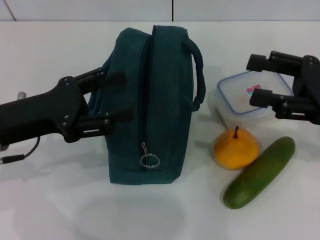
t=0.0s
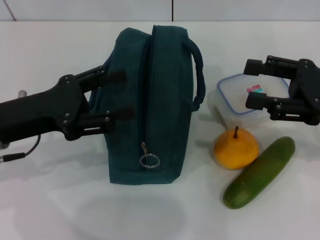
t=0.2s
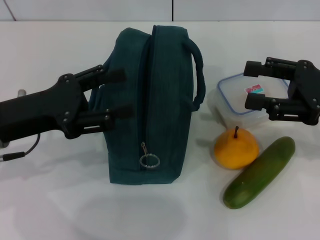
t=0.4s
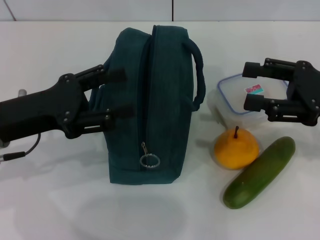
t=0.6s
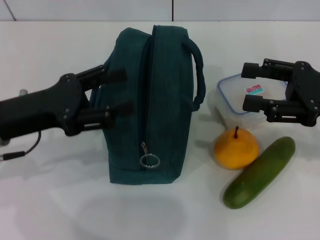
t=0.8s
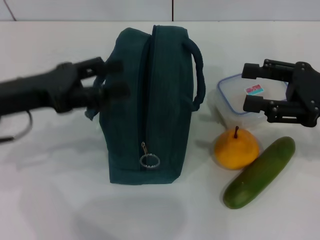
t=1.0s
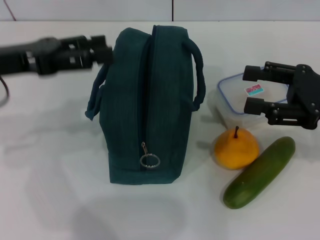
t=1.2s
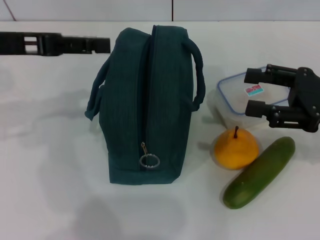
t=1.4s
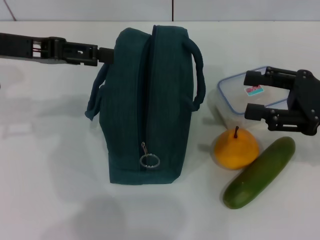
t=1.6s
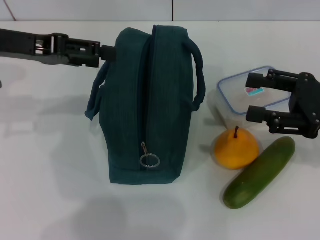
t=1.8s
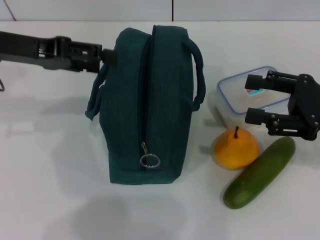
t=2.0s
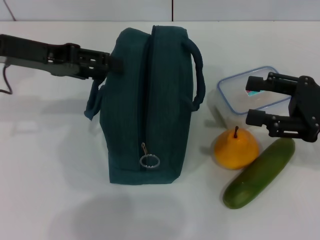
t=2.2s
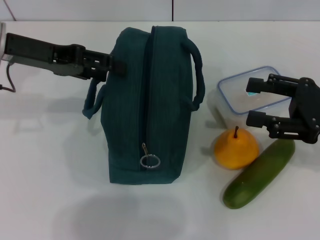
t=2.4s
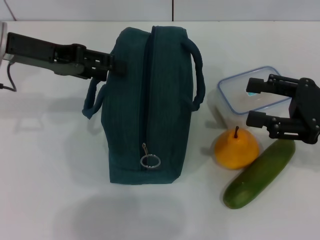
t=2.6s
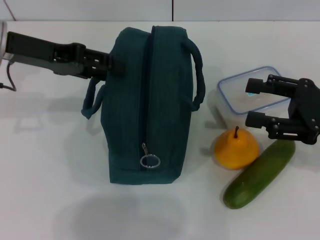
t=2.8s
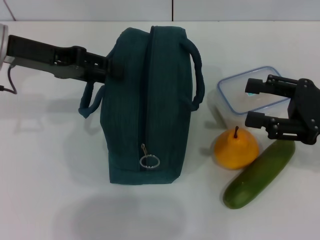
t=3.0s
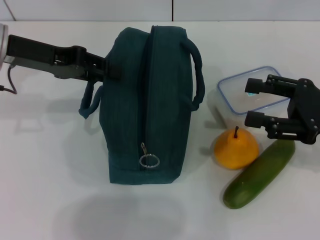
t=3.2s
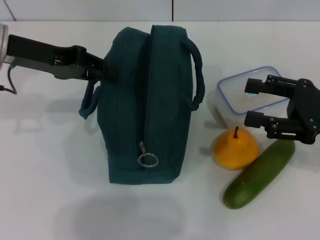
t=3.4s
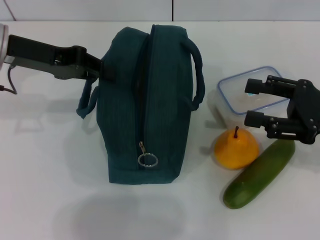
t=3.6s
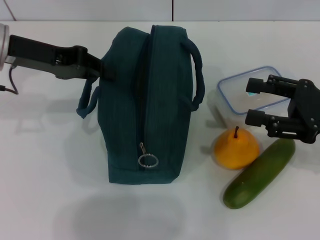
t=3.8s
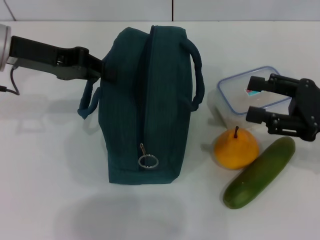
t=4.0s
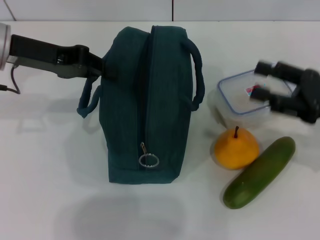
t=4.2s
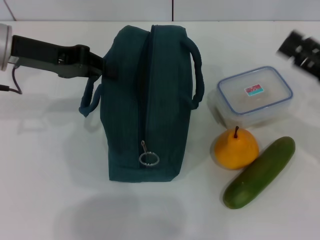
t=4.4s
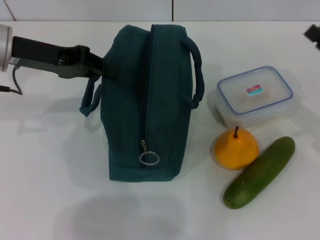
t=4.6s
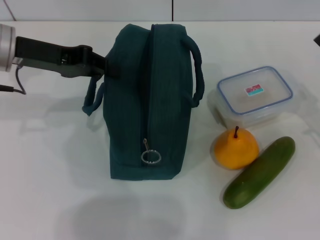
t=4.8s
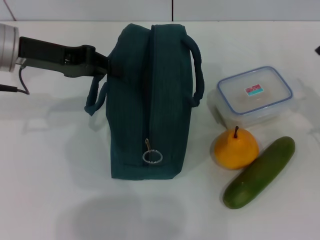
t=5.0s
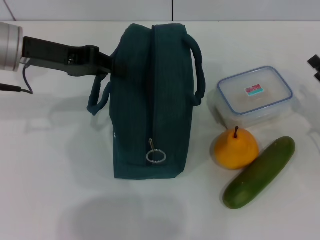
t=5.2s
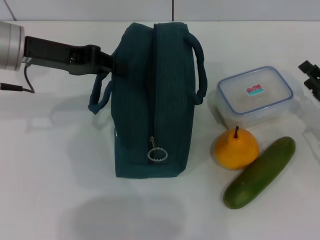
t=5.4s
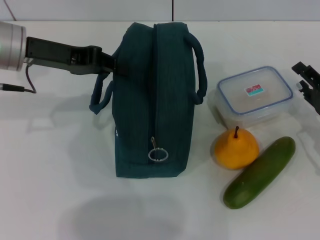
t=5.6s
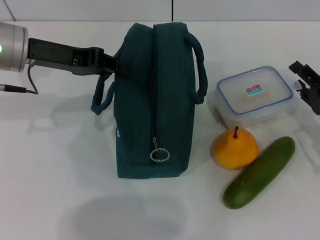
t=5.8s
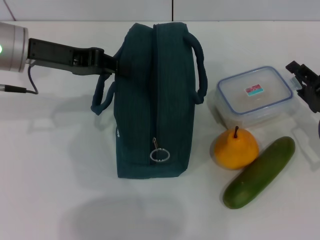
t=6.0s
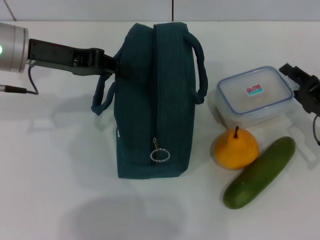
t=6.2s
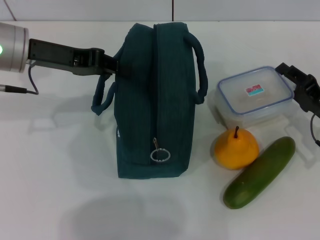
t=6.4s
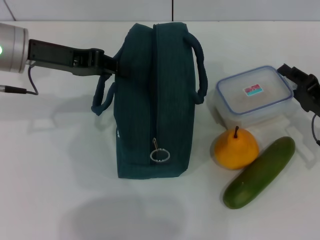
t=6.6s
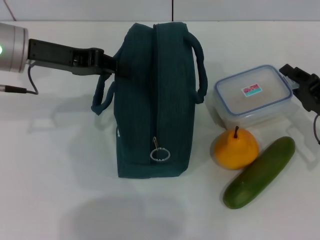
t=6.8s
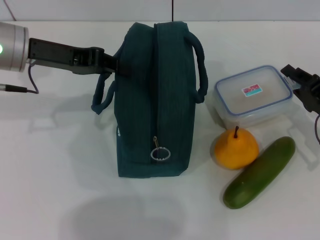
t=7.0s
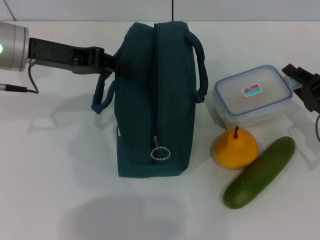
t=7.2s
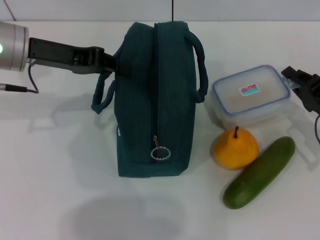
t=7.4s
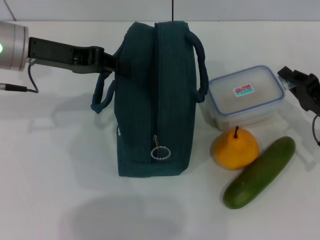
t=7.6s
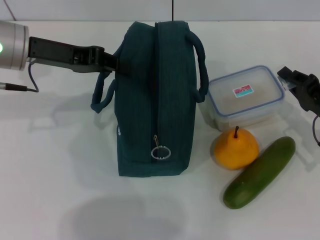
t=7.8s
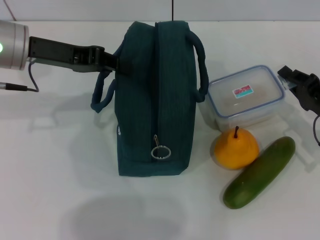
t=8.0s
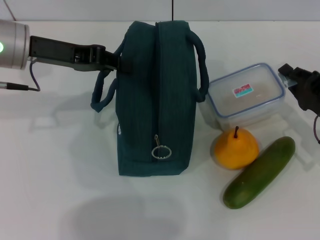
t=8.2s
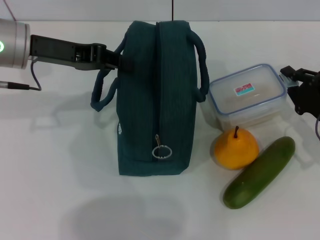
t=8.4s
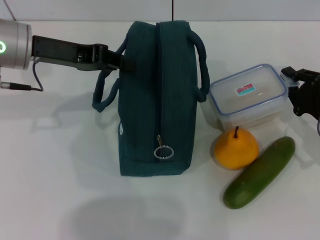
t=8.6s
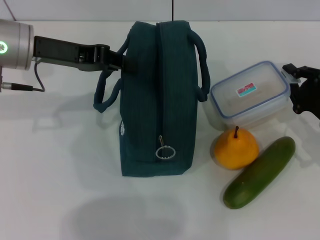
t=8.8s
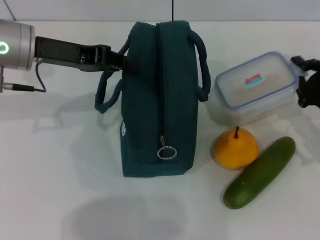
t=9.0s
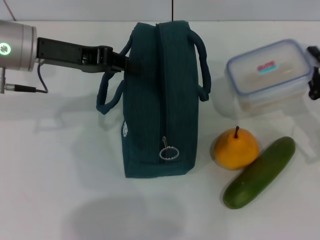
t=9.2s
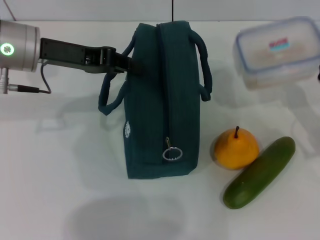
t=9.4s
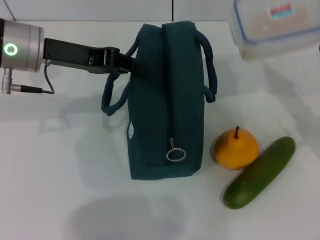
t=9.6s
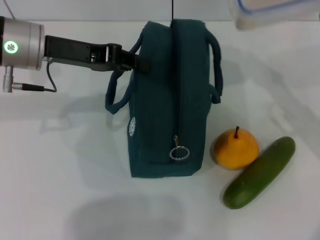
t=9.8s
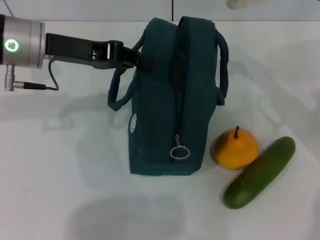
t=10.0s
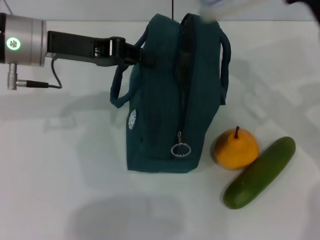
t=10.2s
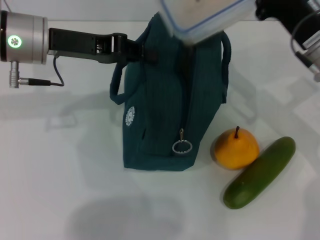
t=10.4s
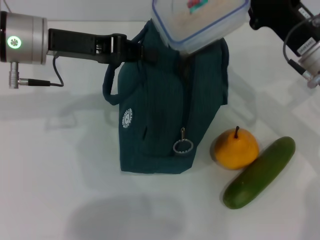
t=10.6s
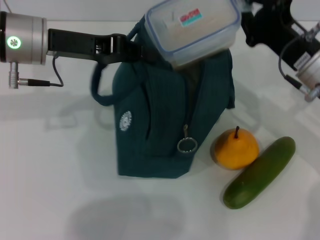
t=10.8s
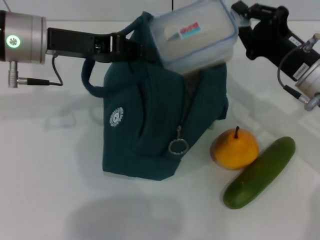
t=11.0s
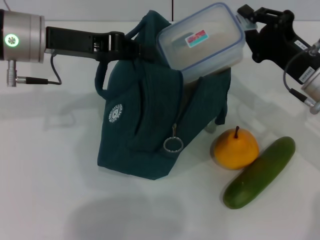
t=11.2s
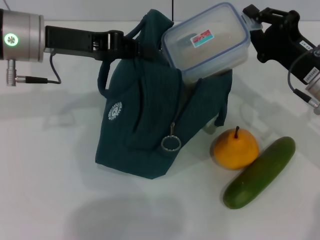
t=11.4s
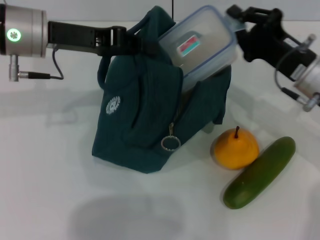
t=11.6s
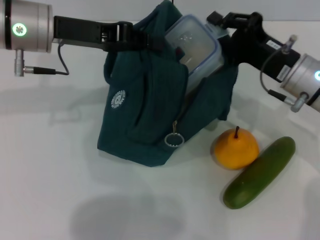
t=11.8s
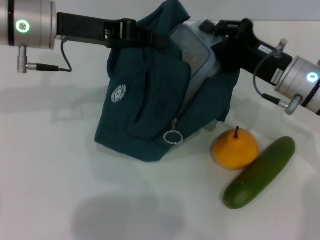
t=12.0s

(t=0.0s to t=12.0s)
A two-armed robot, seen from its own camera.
Step, t=0.0s - t=4.6s: Hold the lunch bag with your left hand.
Step, t=4.8s - t=7.8s: Pick up the lunch box with your right hand.
t=0.0s - t=1.6s: The left gripper is displaced forward and upward by roughly 10 cm.
t=1.6s - t=3.0s: There are only small adjustments of the grippers.
t=3.0s - t=4.4s: The left gripper closes.
t=4.4s - t=6.0s: The right gripper is displaced downward by approximately 10 cm.
t=6.0s - t=7.6s: The right gripper closes up.
t=9.0s - t=10.4s: The right gripper travels upward, to the left and forward by about 15 cm.

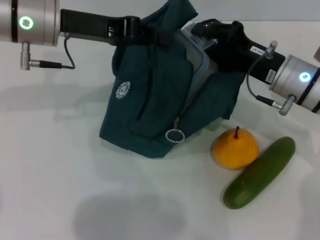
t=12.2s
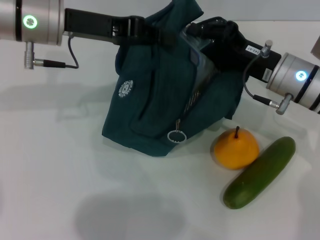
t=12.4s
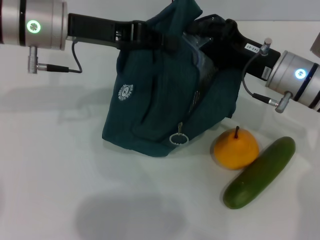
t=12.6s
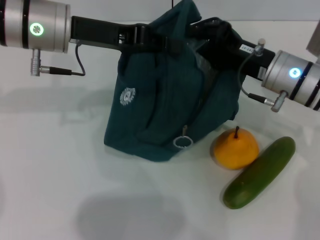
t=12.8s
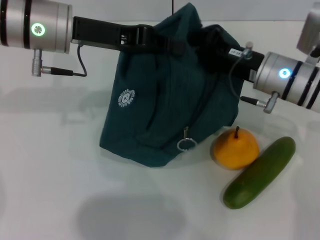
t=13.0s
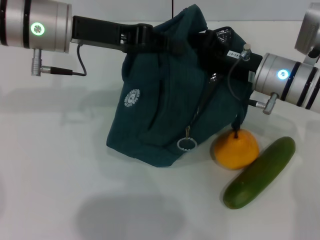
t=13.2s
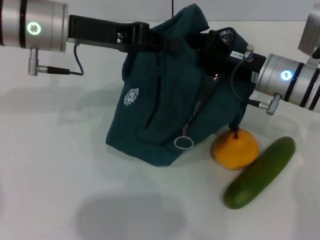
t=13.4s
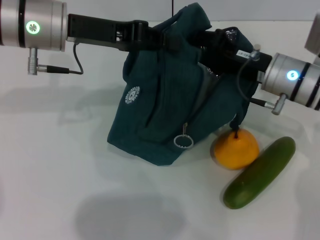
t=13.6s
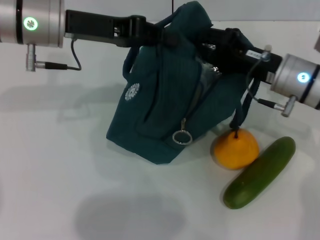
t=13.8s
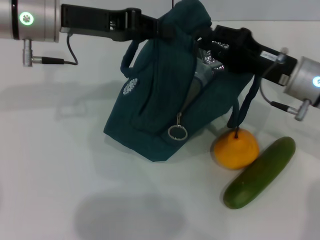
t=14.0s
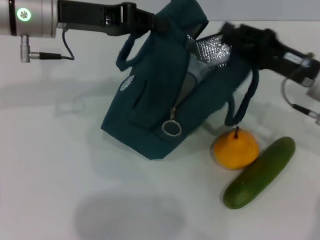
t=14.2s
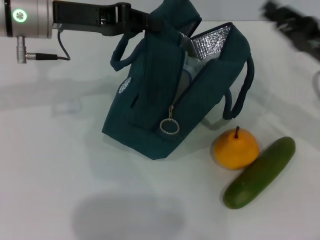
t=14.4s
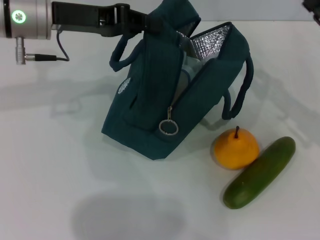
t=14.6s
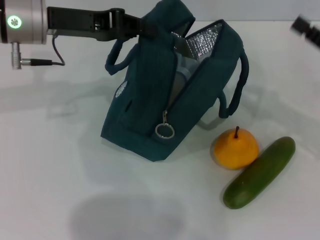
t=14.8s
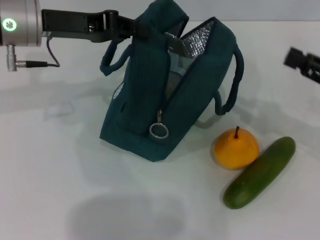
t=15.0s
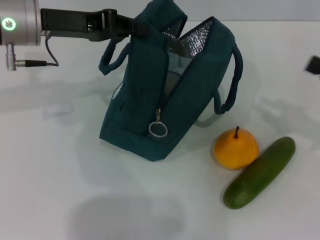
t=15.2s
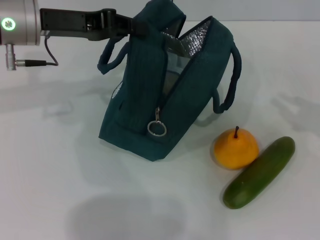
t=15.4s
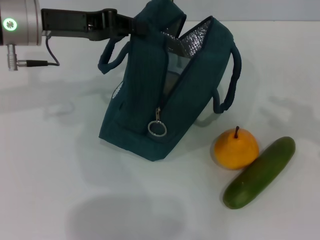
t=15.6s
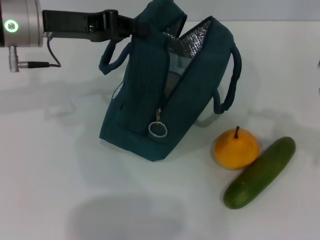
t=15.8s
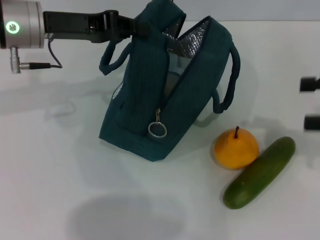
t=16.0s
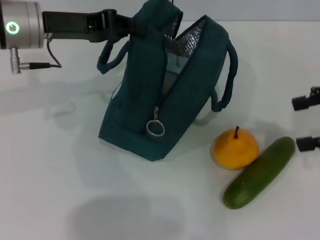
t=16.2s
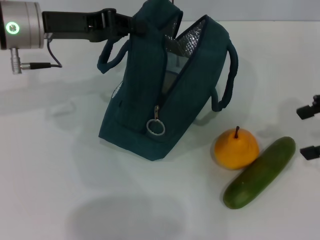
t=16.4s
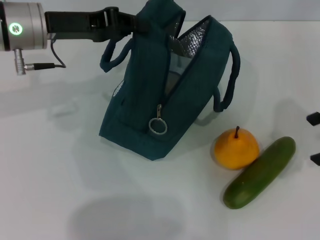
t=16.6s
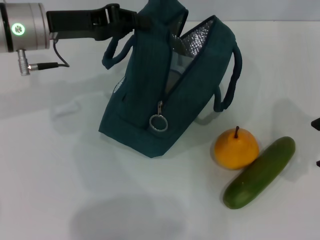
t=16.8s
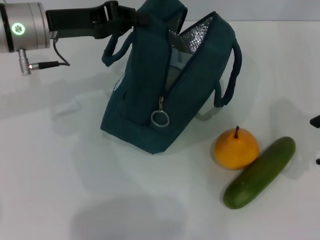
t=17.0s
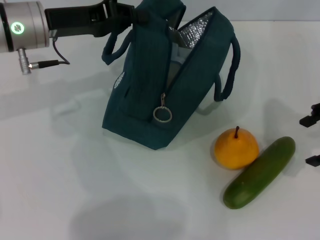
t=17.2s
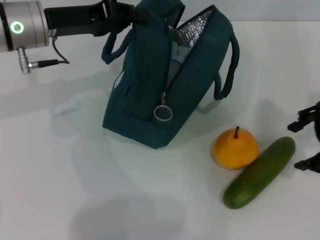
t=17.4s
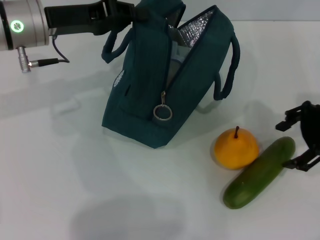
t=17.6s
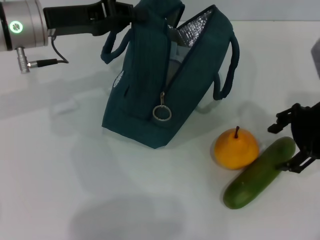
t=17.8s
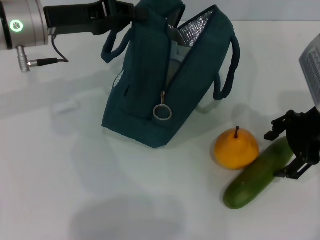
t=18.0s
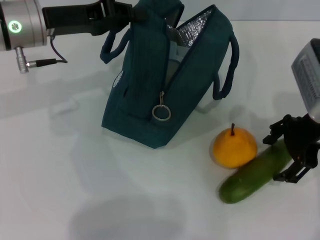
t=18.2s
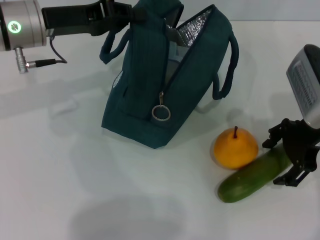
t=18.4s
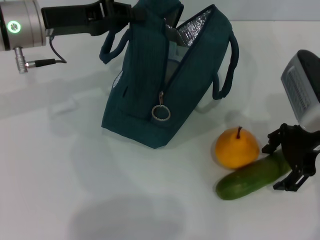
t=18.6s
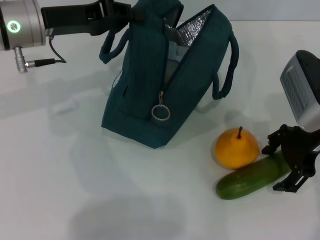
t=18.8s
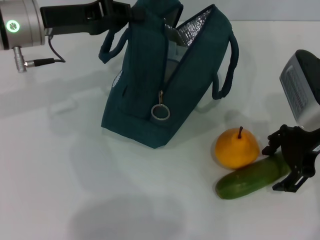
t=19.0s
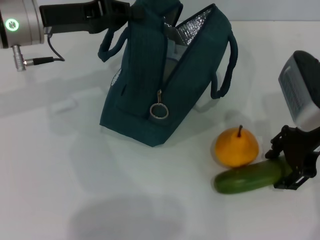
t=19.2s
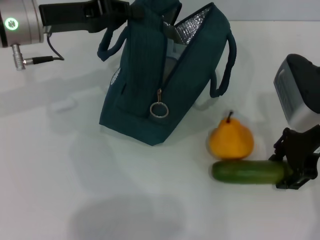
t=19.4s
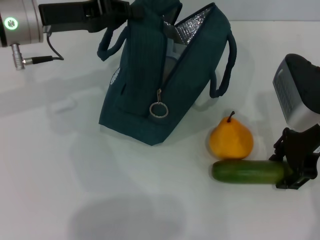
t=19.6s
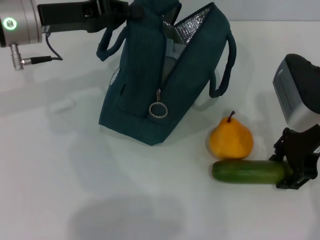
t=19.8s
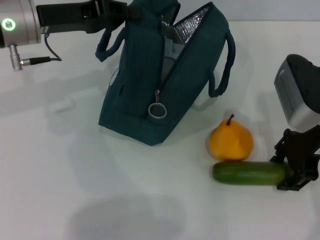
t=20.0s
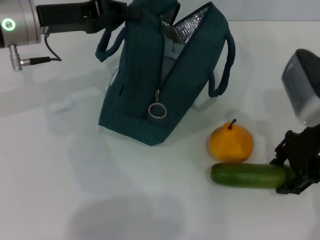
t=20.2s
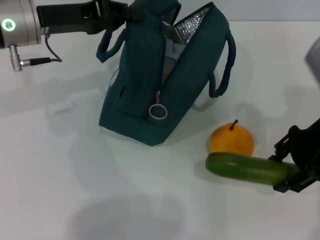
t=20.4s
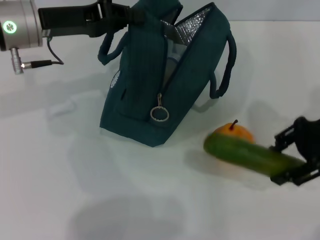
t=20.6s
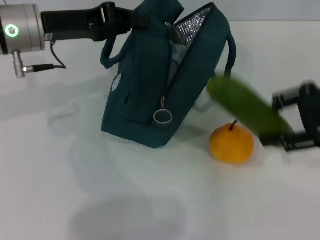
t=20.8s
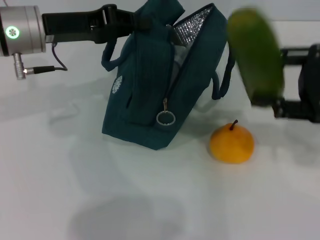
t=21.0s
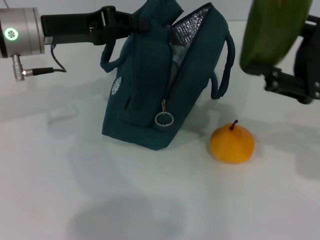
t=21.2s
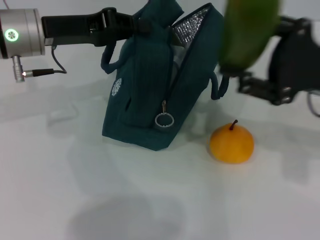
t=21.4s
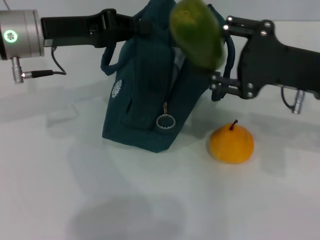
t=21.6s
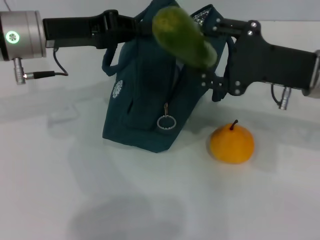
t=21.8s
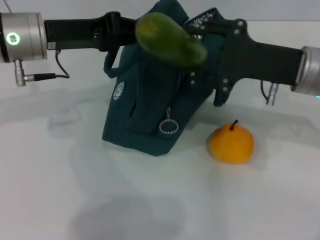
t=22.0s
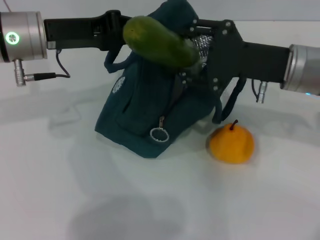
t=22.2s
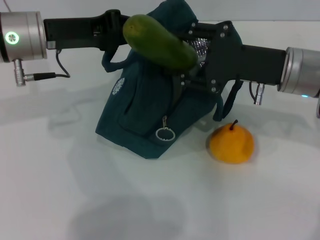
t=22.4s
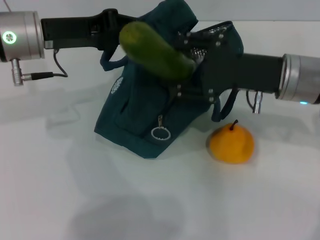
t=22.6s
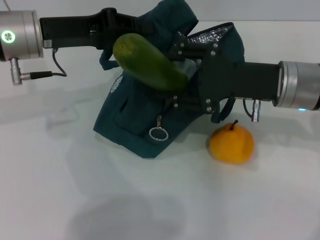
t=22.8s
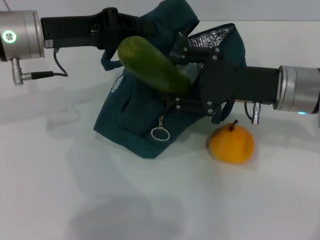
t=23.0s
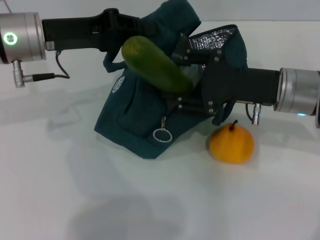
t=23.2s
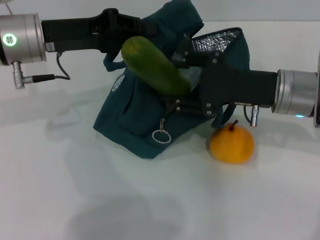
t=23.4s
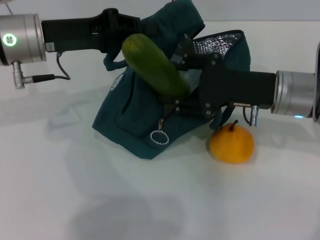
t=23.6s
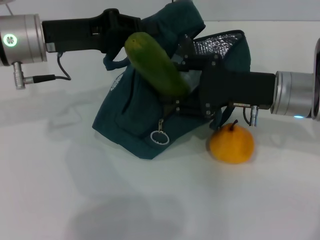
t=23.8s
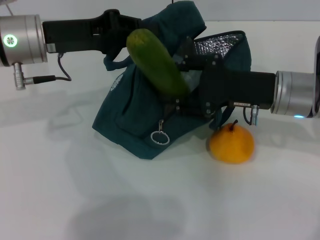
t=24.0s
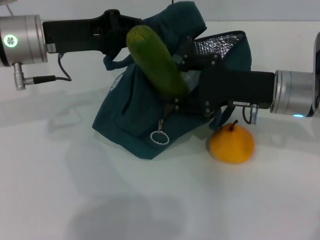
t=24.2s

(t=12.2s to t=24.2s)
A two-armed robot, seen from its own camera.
Step, t=14.2s - t=19.6s: Pick up the cucumber with your right hand.
t=12.2s - t=13.8s: There are only small adjustments of the grippers.
t=13.8s - t=15.2s: The right gripper goes about 20 cm to the right and backward.
t=15.2s - t=16.6s: The right gripper is displaced upward by approximately 10 cm, and opens.
t=16.6s - t=18.2s: The right gripper shifts some 10 cm to the left and downward.
t=18.2s - t=19.8s: The right gripper closes up.
t=19.8s - t=21.2s: The right gripper goes about 5 cm to the right.
t=21.2s - t=22.6s: The right gripper is displaced to the left by about 10 cm.
t=22.6s - t=24.2s: The grippers move only a little.
